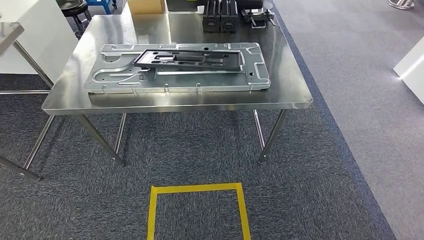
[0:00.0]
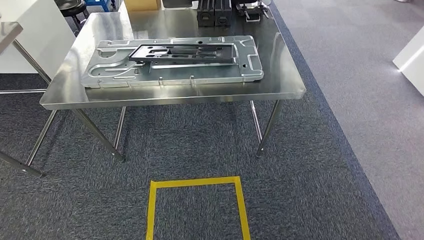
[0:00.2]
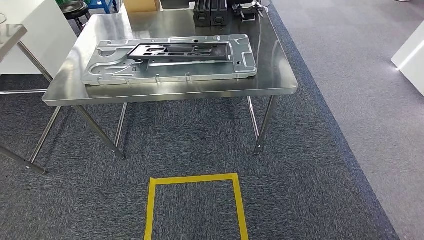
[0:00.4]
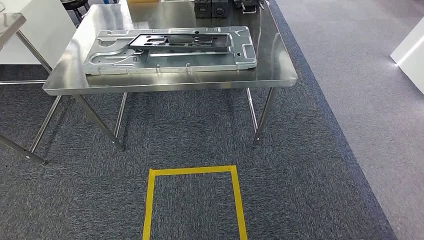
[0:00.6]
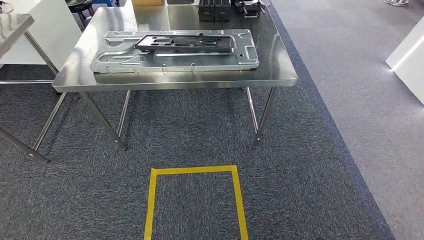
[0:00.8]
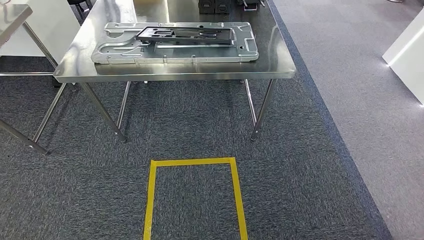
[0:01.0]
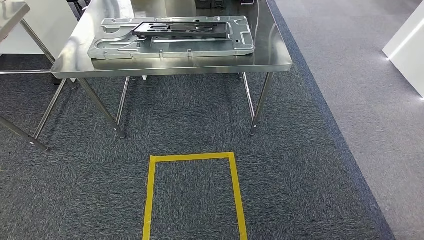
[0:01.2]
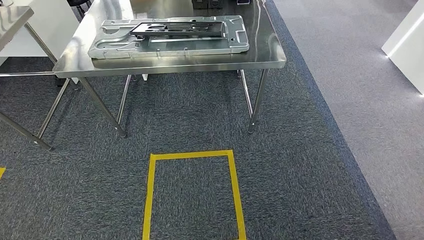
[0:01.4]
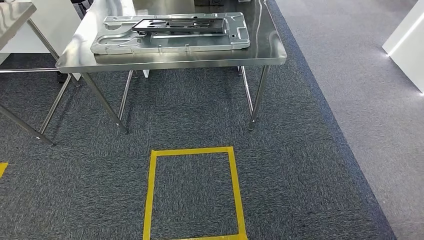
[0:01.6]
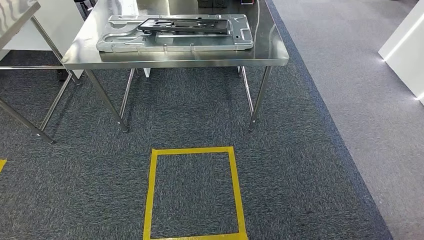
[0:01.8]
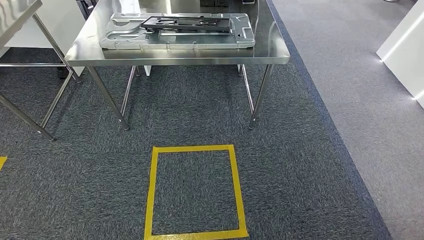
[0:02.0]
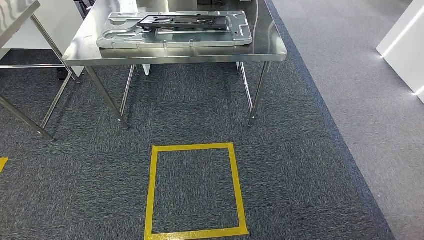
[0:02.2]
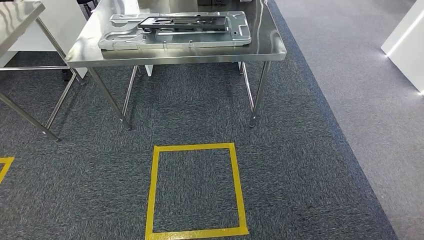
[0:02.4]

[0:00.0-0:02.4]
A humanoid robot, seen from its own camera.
Step, 0:00.0 to 0:02.4: Move to the initial position of the shelf.
0:01.2 to 0:02.4: The hands stay close to where they were, moving slightly.
